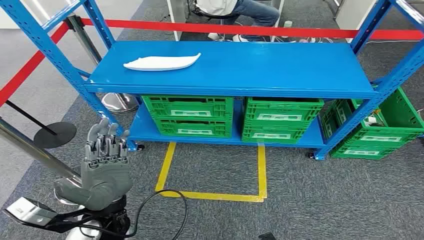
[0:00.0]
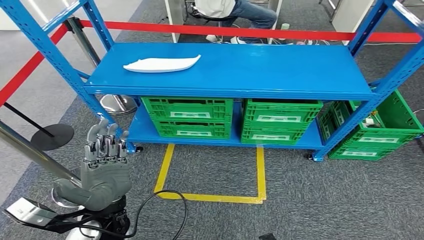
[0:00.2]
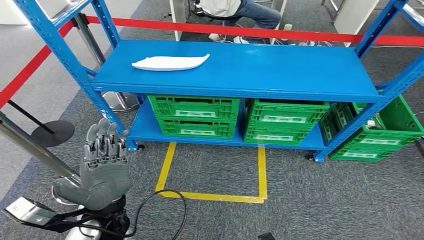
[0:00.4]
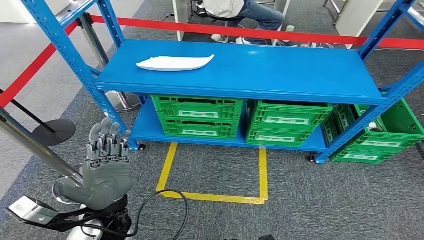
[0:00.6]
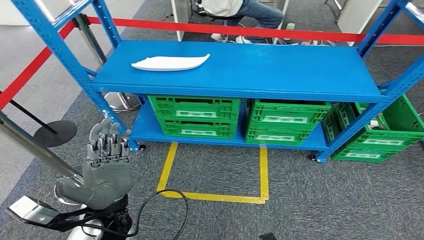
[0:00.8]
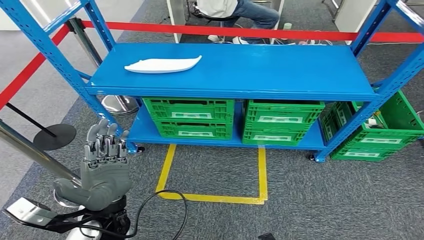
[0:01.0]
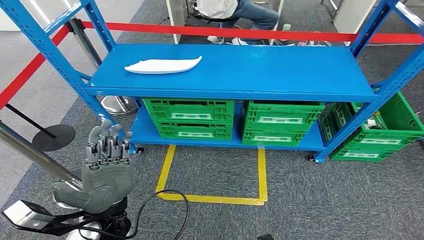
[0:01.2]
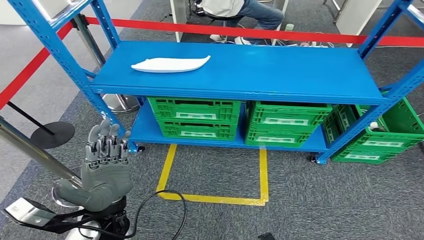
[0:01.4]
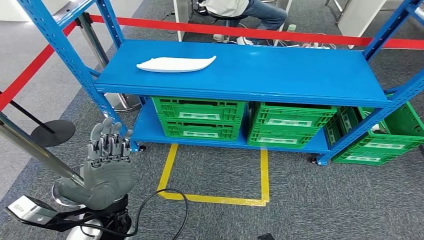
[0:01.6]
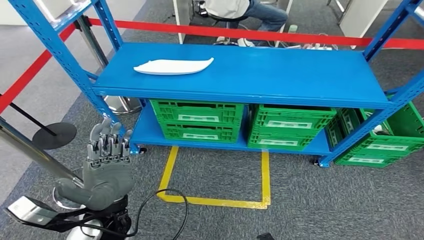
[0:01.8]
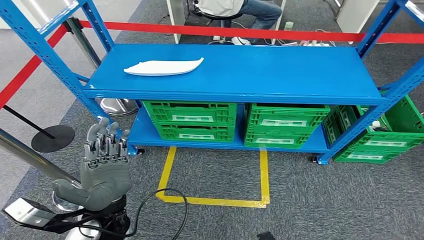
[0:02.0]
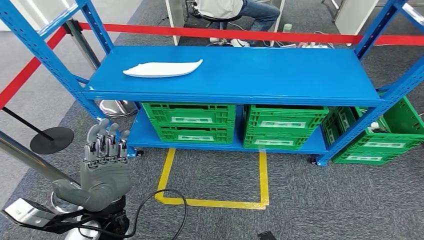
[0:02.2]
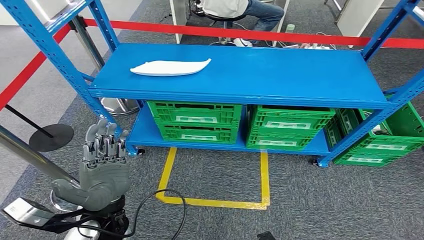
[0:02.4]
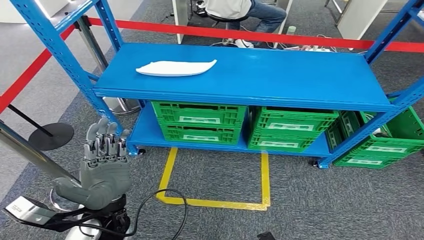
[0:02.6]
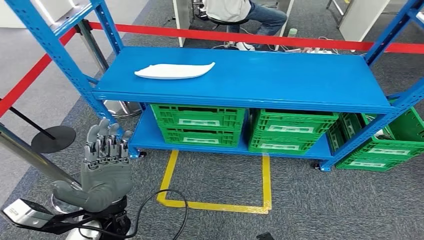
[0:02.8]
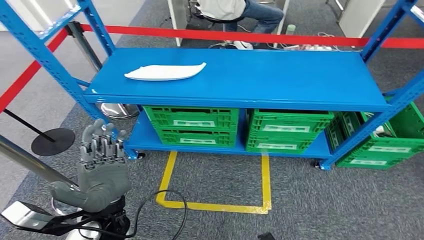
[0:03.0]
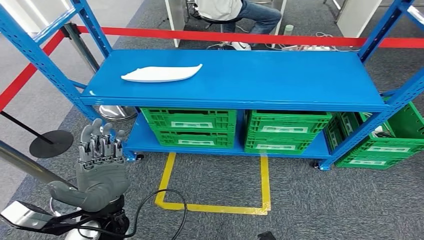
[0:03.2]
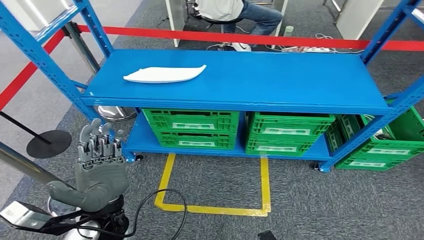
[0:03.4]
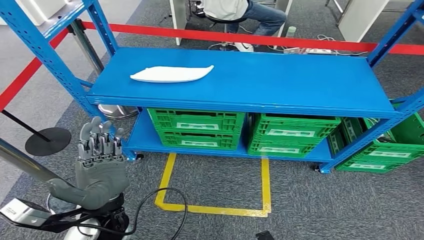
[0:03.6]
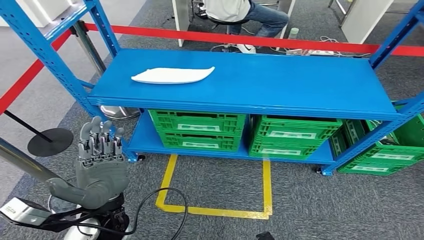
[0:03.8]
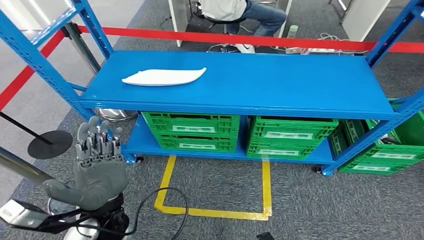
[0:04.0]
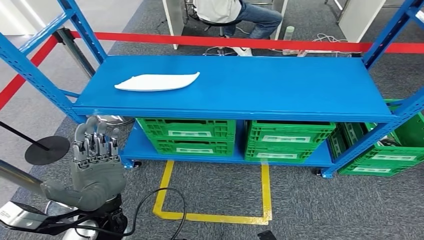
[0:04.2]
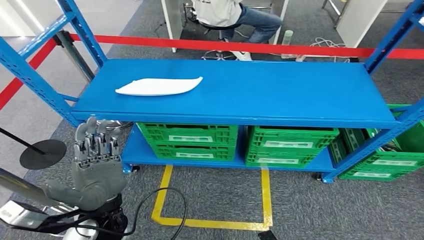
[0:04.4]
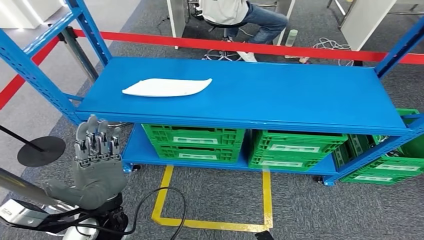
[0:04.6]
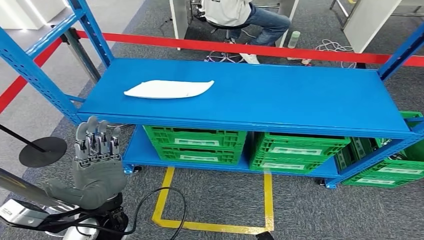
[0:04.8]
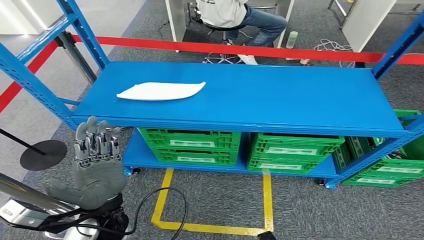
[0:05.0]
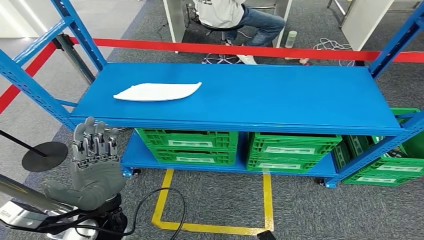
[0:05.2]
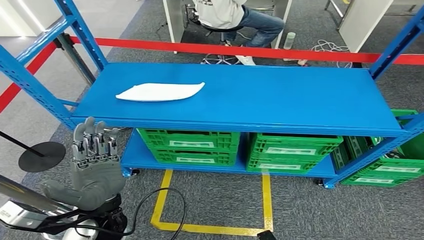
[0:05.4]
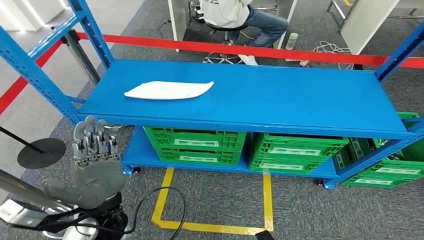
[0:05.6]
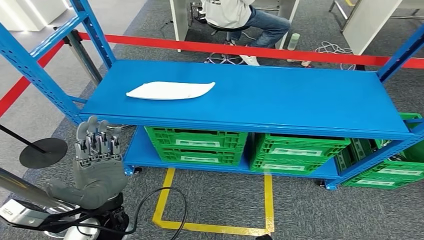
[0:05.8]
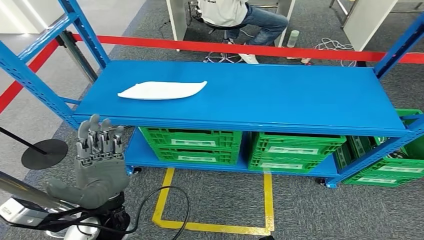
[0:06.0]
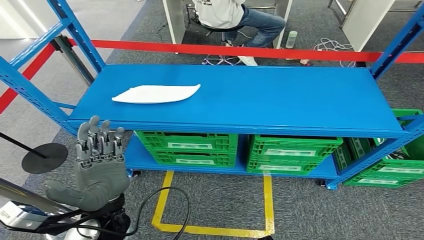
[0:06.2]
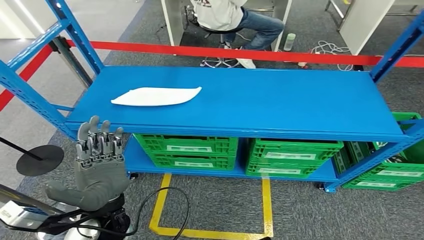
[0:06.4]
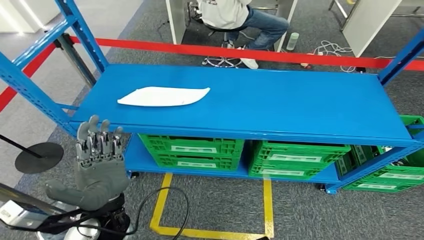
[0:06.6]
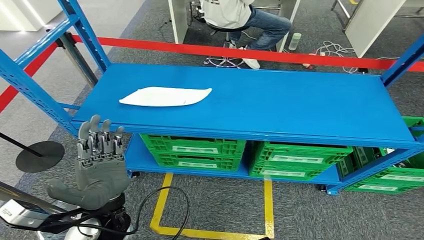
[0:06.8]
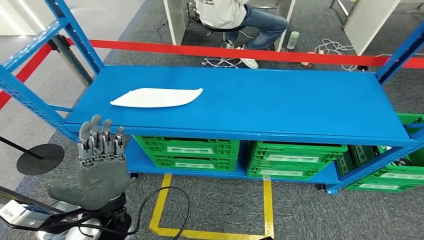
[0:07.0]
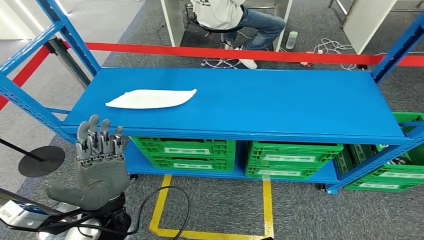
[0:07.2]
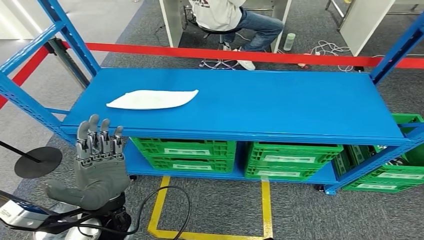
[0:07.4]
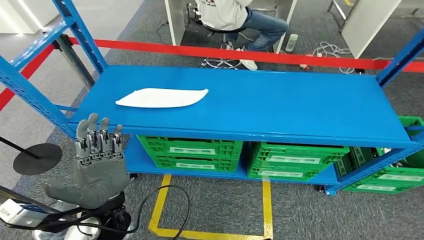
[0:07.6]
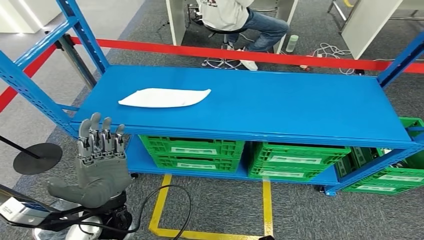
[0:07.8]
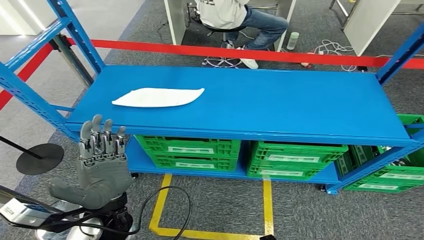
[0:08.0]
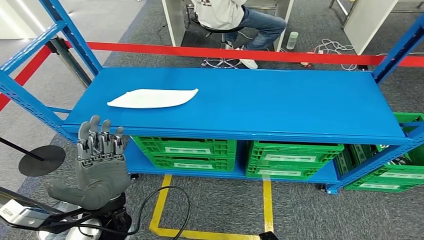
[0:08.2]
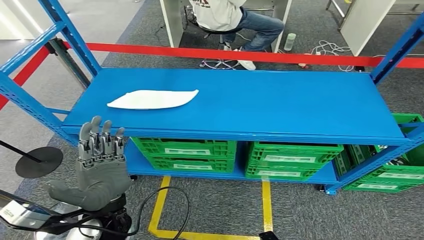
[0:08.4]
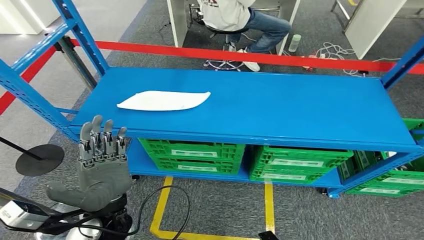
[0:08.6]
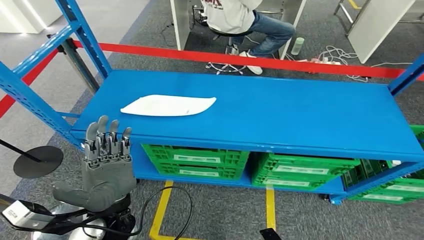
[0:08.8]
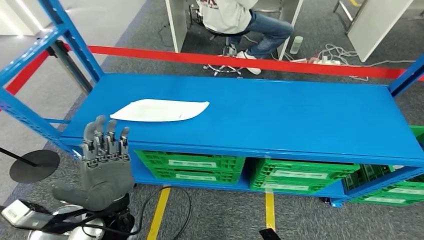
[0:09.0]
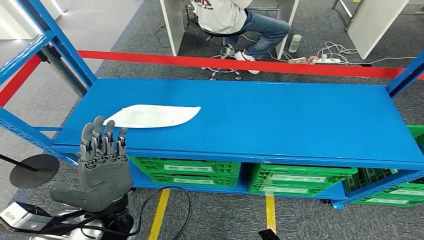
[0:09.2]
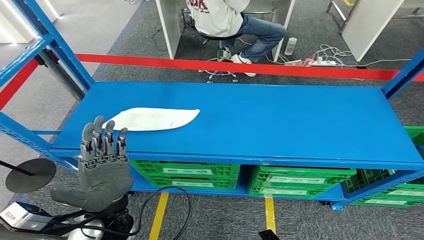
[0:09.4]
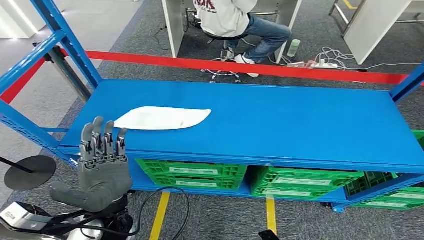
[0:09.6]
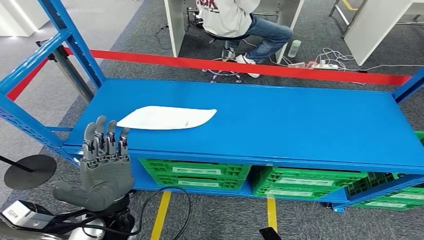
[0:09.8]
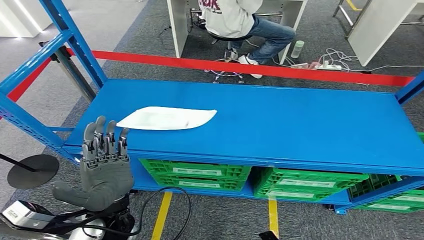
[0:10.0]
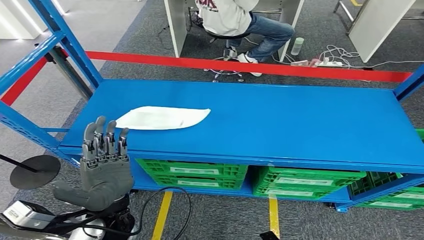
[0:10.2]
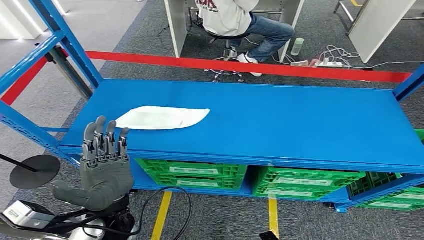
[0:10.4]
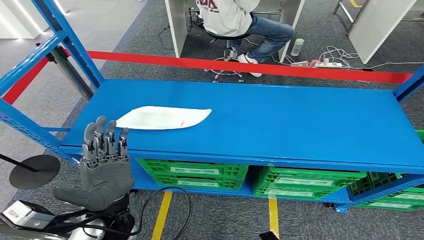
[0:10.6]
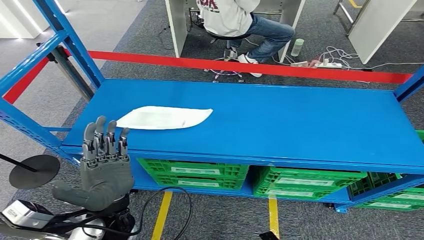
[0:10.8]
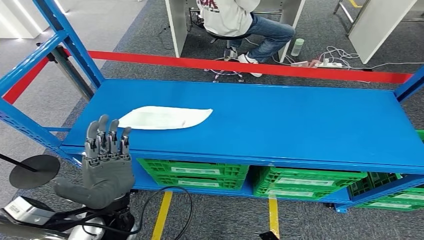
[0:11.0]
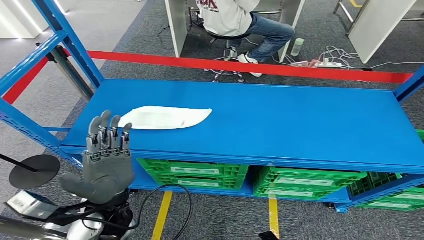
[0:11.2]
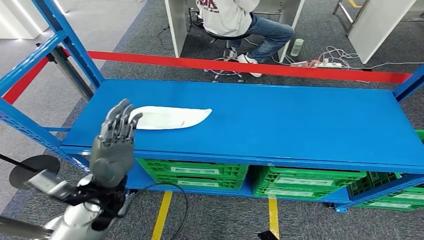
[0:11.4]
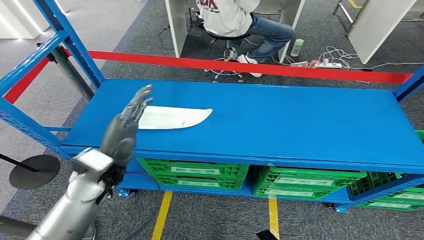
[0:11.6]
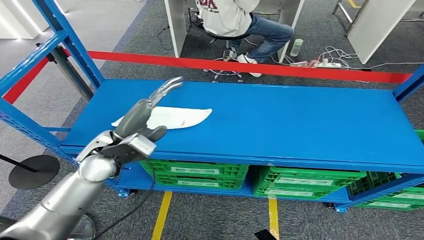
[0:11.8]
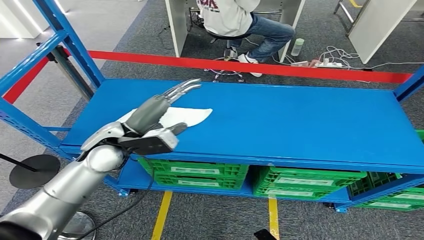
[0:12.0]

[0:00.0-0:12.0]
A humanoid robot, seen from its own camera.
0:10.4 to 0:12.0: The left hand shifts some 15 cm forward and upward.

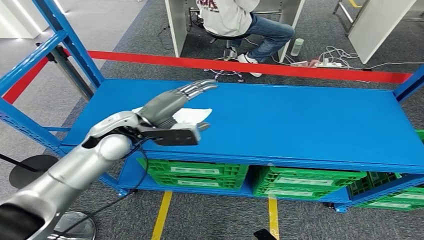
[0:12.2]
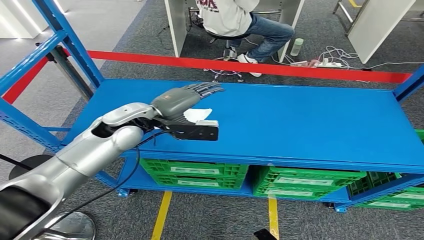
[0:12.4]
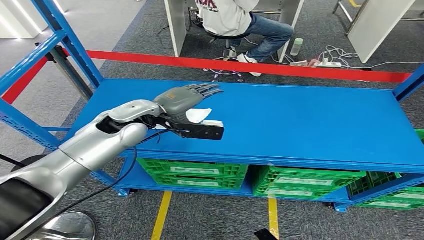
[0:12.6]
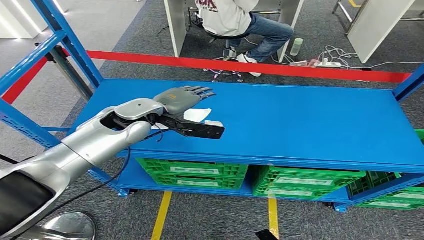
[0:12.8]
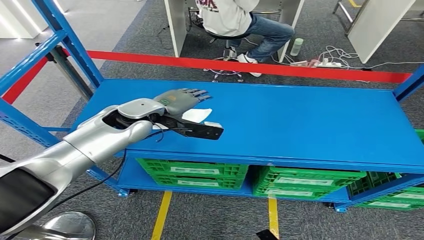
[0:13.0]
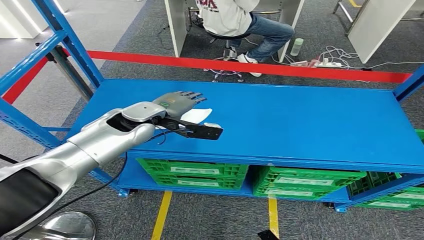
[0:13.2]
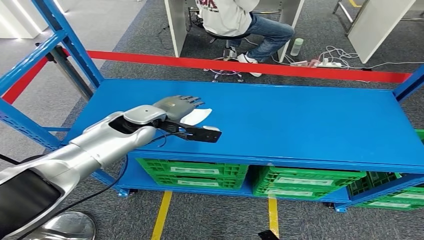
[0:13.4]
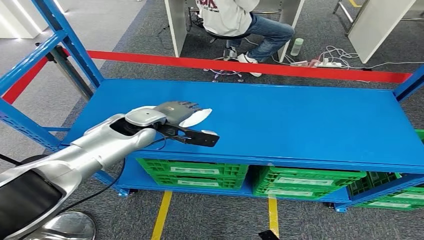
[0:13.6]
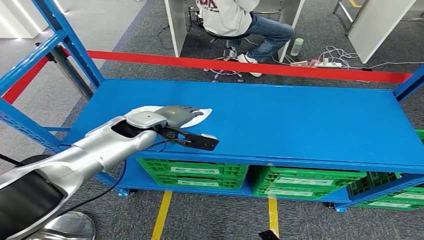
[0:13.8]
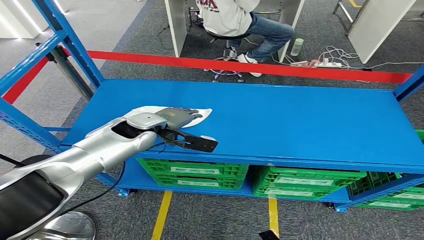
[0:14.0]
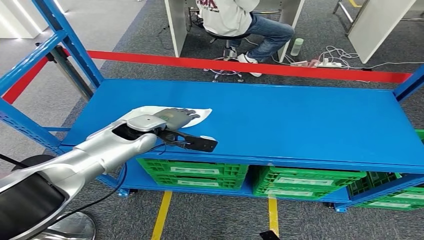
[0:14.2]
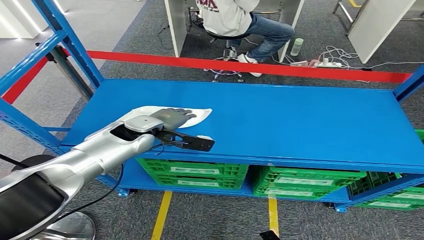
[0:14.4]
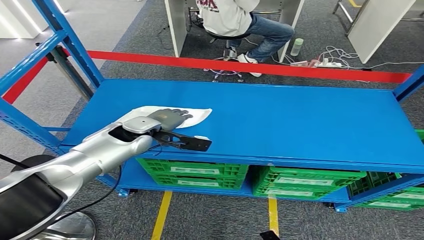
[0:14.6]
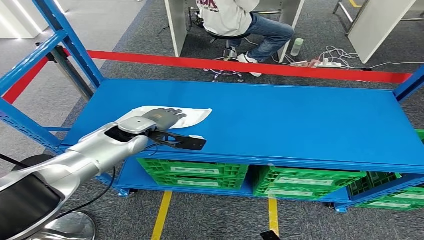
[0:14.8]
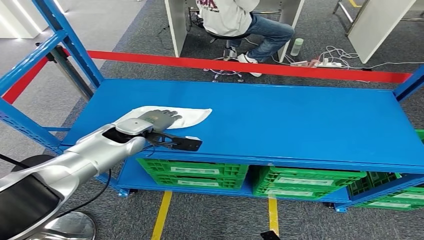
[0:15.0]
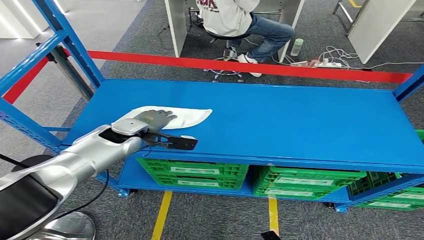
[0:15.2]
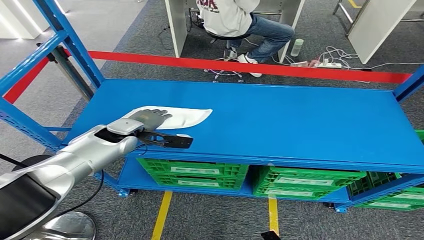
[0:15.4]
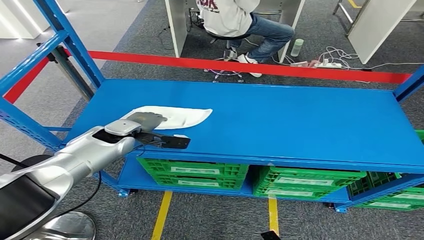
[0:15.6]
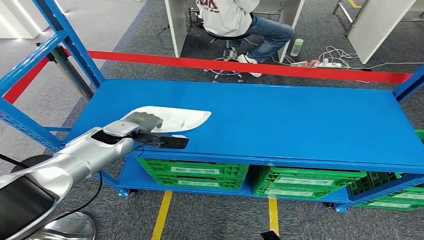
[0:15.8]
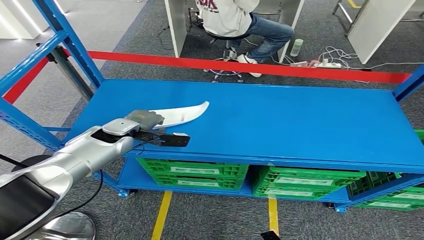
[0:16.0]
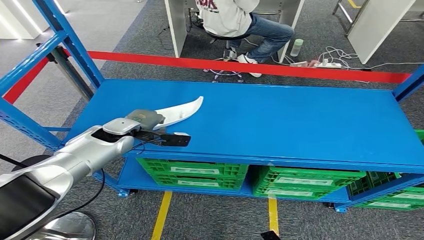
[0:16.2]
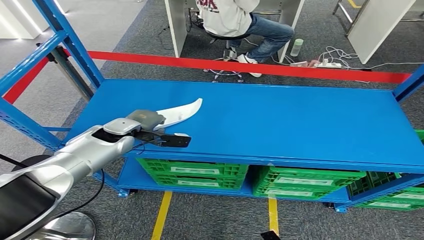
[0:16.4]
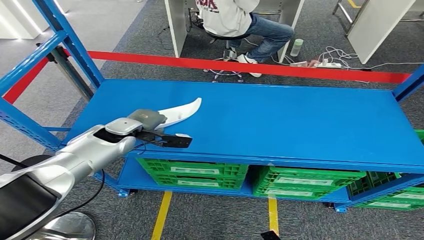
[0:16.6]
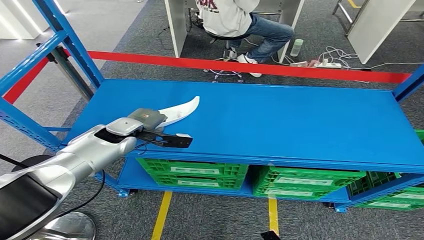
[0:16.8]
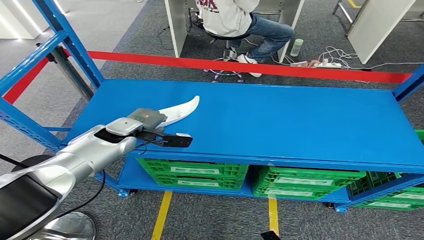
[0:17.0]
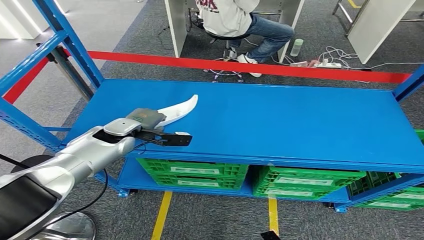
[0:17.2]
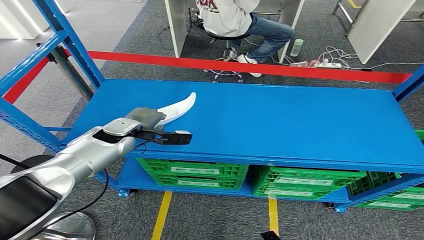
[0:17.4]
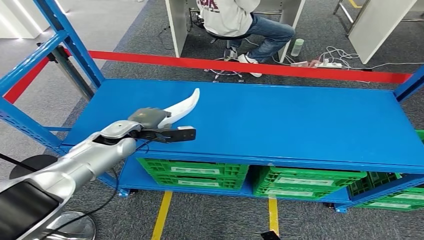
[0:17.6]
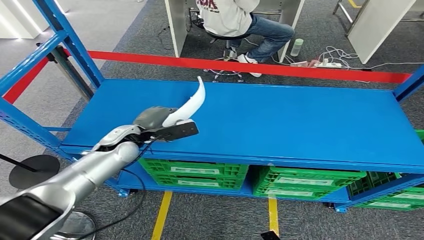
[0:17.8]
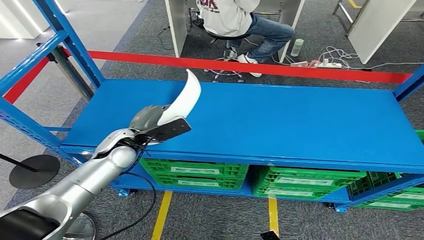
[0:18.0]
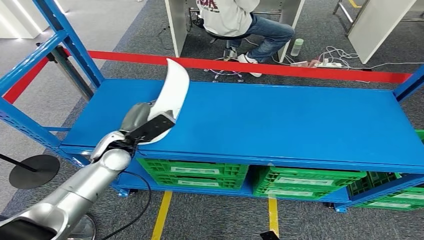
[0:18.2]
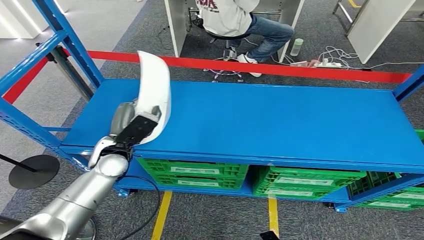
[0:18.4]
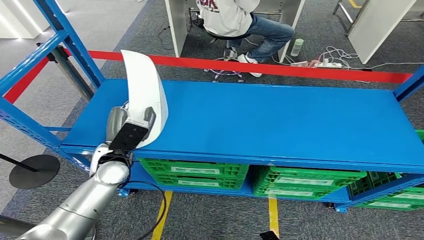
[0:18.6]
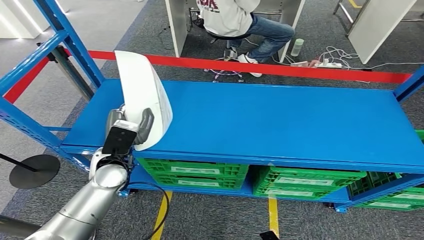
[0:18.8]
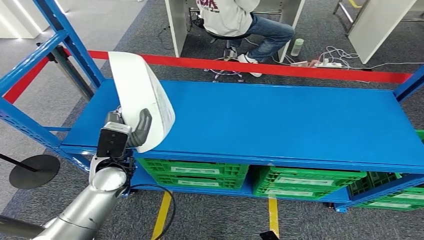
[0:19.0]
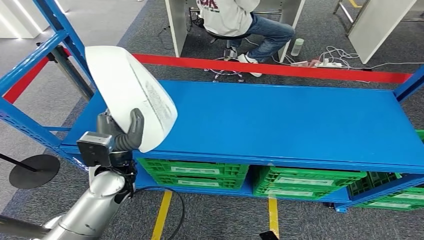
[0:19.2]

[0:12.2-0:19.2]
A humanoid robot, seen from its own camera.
0:12.2 to 0:13.6: The left hand shifts by approximately 5 cm.
0:13.6 to 0:15.0: The left hand moves approximately 5 cm.
0:15.0 to 0:16.4: The hands stay close to where they were, moving slightly.
0:17.8 to 0:19.2: The left hand moves backward, some 10 cm.
